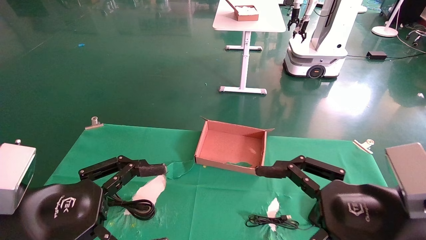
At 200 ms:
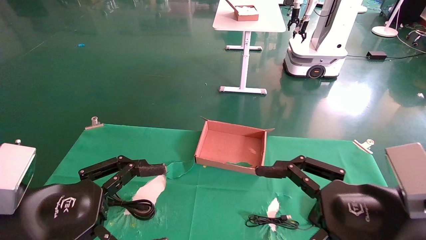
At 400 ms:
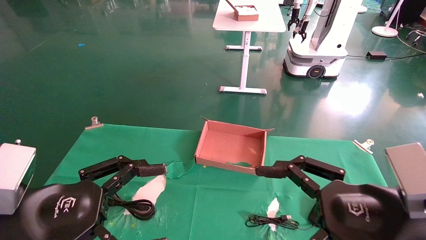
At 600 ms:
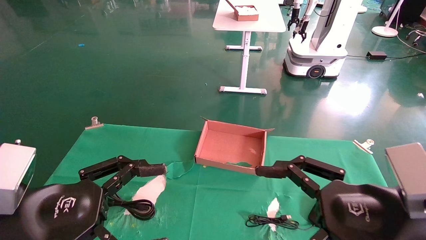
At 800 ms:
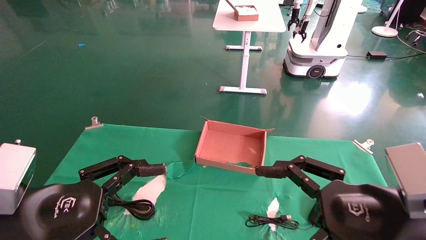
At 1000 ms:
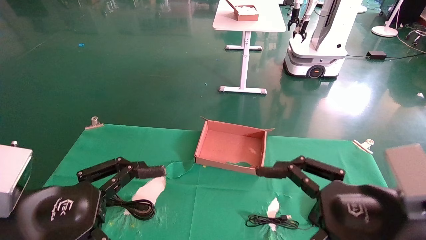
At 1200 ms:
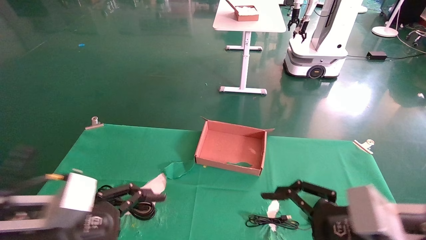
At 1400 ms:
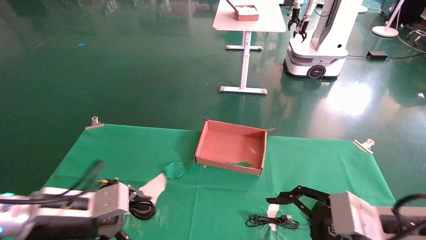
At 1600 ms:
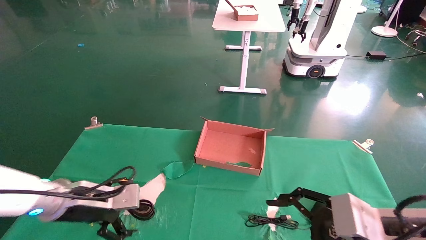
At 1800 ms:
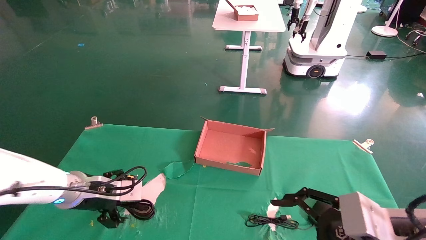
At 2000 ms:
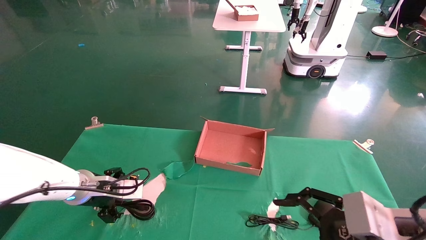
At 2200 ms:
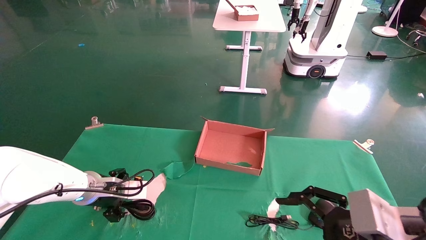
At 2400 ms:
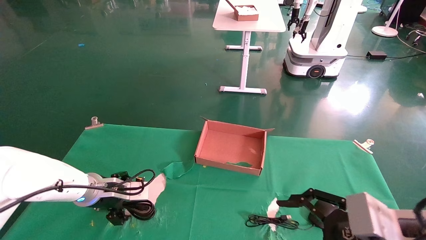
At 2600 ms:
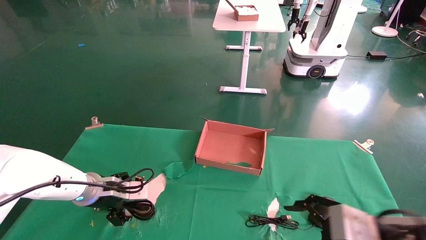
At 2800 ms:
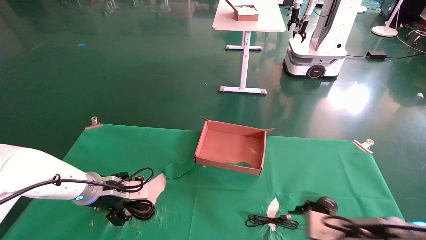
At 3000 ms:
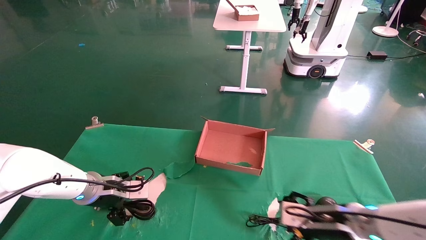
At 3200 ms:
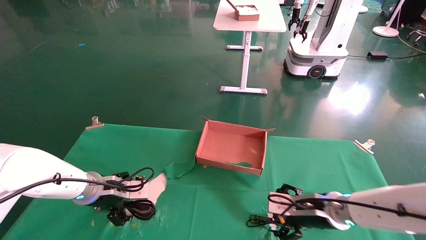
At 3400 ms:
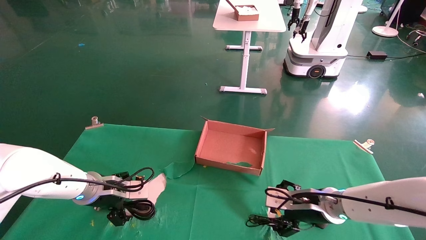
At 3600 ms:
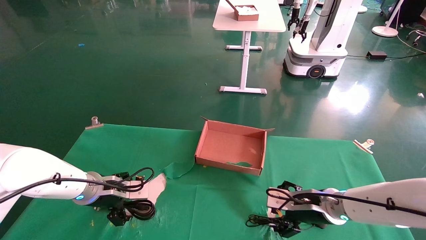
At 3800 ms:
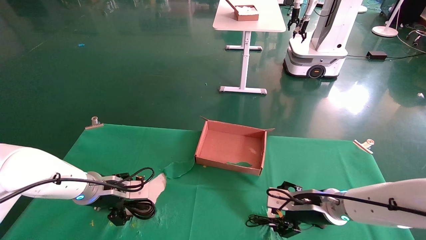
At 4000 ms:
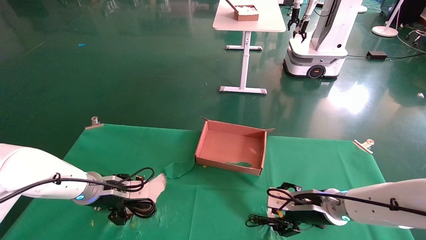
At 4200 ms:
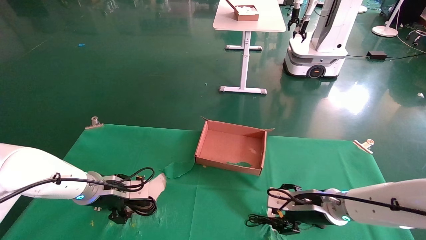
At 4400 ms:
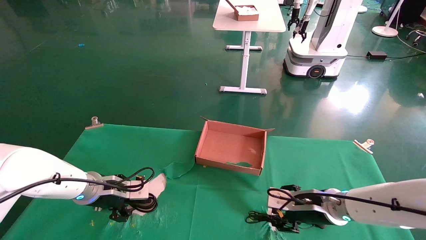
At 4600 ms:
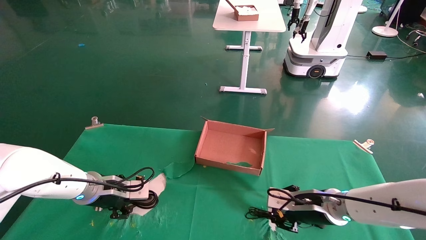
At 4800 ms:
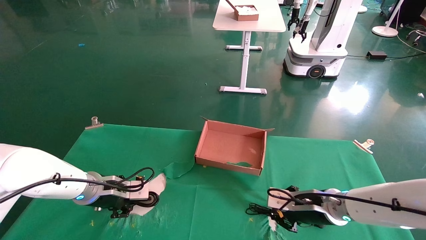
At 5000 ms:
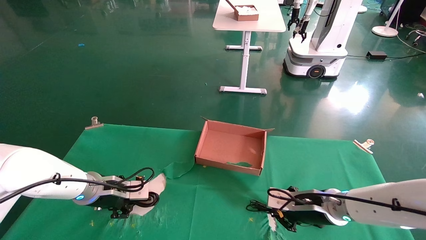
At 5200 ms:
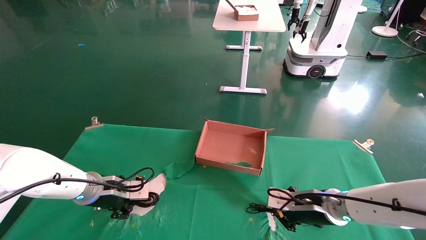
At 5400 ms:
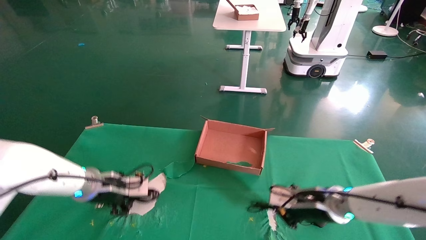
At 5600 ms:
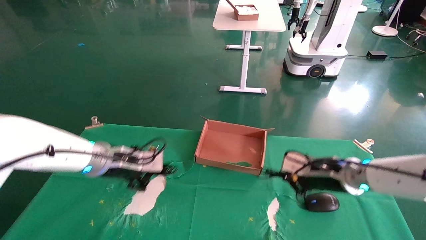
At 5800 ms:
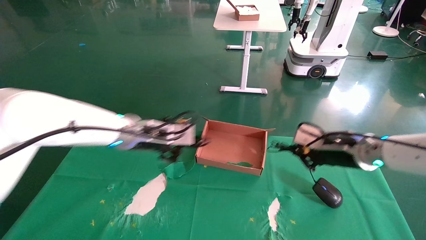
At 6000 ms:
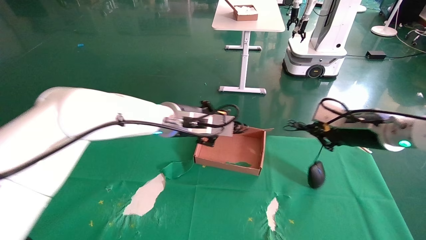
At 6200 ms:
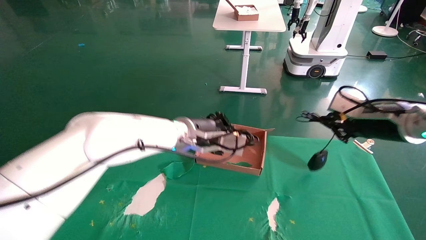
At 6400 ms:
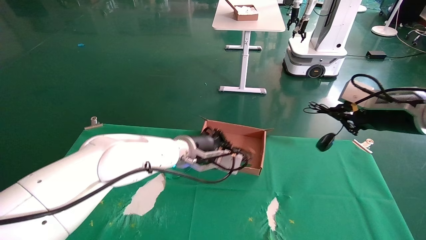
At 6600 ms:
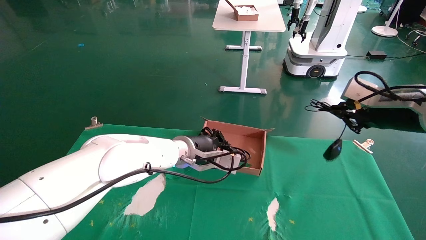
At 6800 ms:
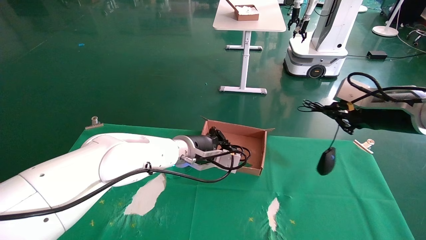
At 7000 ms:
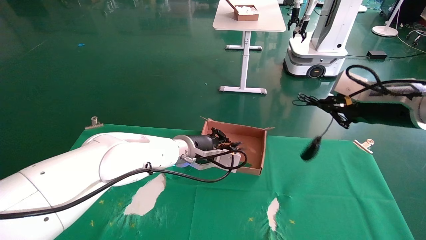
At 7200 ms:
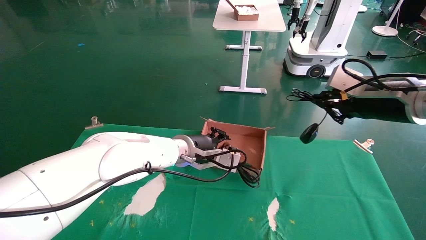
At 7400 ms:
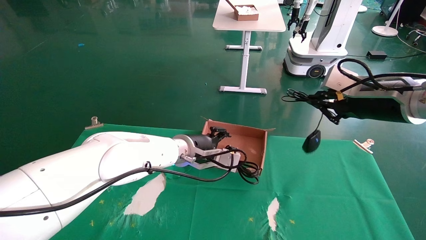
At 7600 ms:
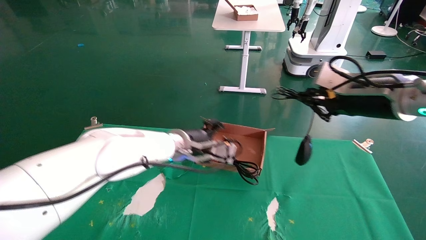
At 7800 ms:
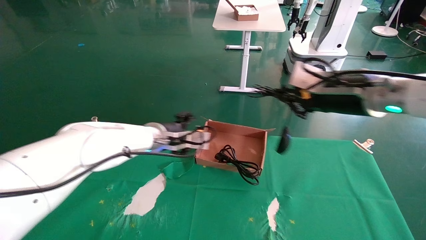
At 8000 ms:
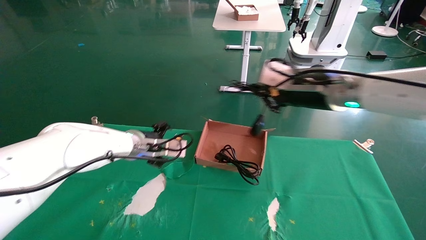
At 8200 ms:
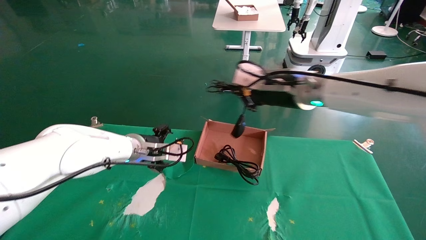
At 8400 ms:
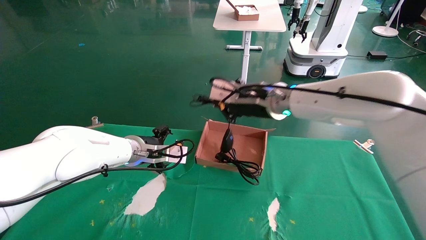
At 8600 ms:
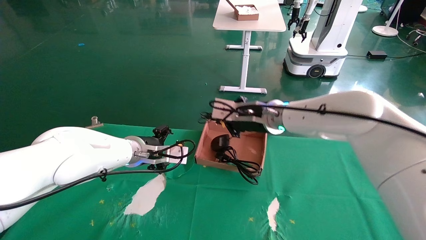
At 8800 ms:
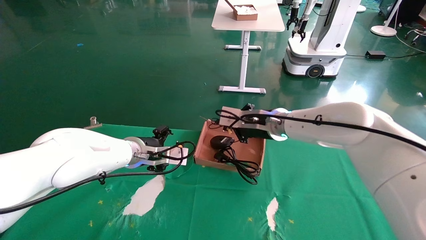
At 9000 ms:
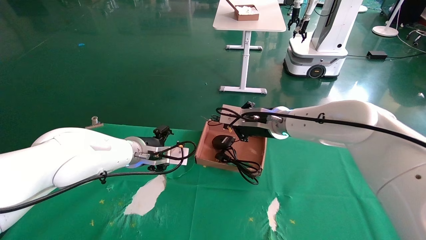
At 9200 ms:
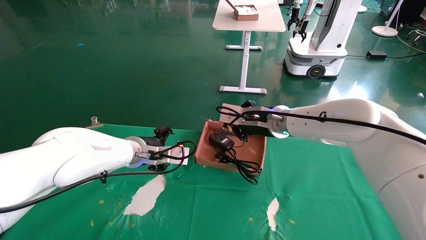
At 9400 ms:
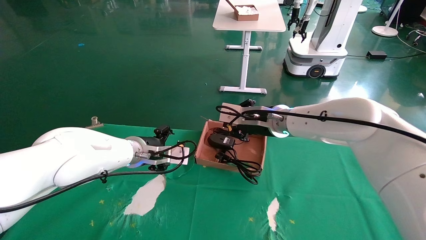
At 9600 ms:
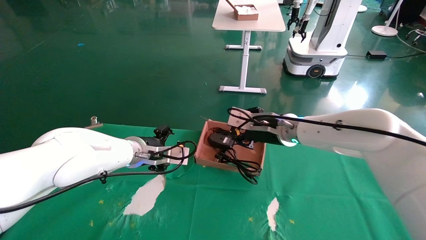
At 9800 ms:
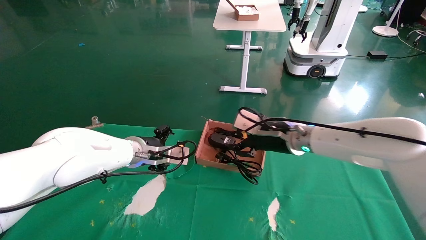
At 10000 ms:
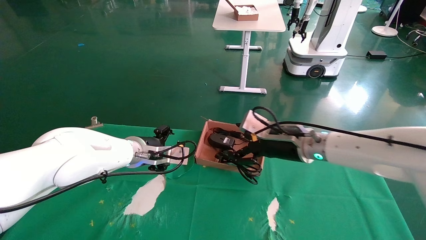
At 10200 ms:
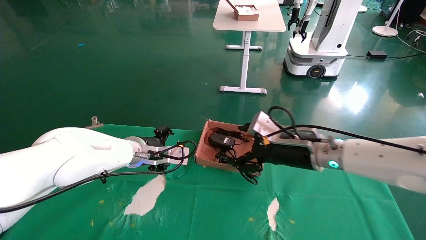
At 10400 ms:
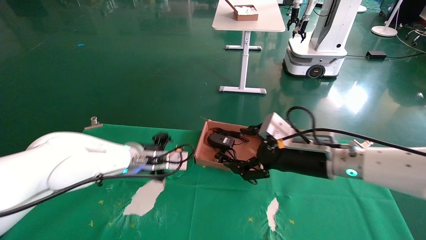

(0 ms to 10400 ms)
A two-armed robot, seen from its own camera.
Step, 1000 ms - 6000 ms: Grab and lift both the mouse and power cord from the accessory packaging area at the same time.
Step, 6200 ms - 10400 ms: Place the mouse and power cord into the box.
0 ms - 1400 ms: The left gripper is displaced forward and downward by approximately 15 cm. The right gripper changes place by about 5 cm.
1400 ms - 3000 ms: The left gripper shifts approximately 15 cm forward. Meanwhile the right gripper travels forward and downward by some 15 cm.
3000 ms - 4400 ms: The left gripper closes its fingers; the right gripper ends up some 5 cm from where it was.
4400 ms - 6000 ms: The left gripper is displaced to the right and upward by some 20 cm, and closes its fingers. Meanwhile the right gripper travels upward and to the right by some 20 cm, and closes.
6000 ms - 7400 ms: The right gripper shifts about 5 cm upward. Meanwhile the left gripper moves roughly 5 cm, and opens up.
7400 ms - 9000 ms: The right gripper goes approximately 20 cm to the left and forward; the left gripper shifts roughly 10 cm to the left, and opens its fingers.
9000 ms - 10400 ms: The right gripper is displaced backward and to the right by about 15 cm, and opens.

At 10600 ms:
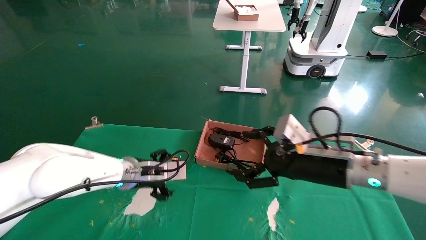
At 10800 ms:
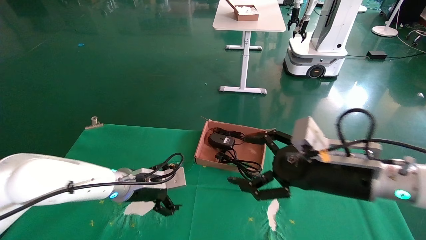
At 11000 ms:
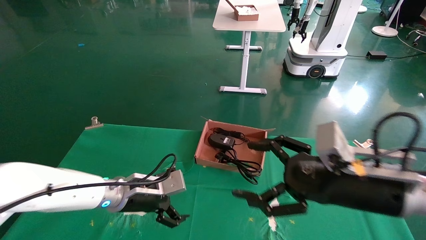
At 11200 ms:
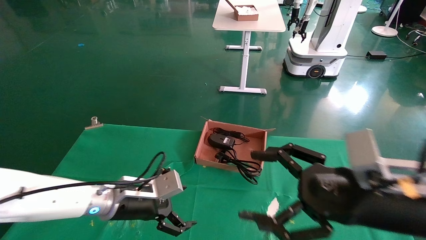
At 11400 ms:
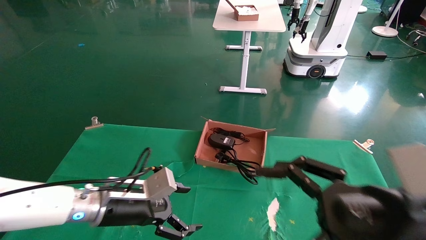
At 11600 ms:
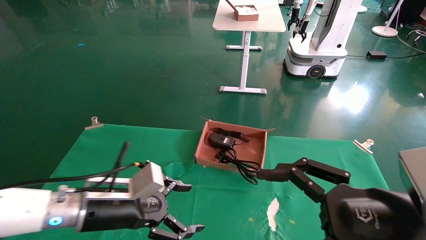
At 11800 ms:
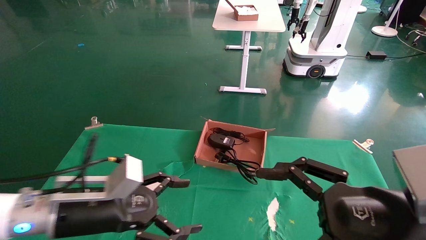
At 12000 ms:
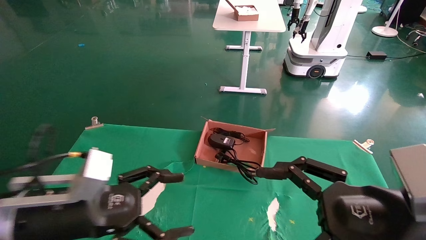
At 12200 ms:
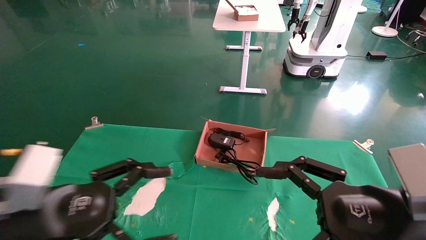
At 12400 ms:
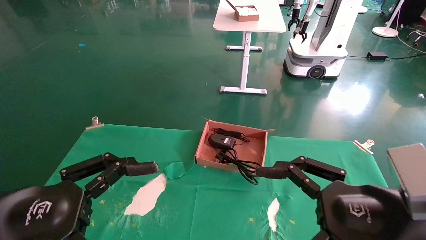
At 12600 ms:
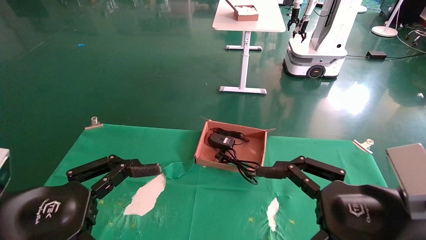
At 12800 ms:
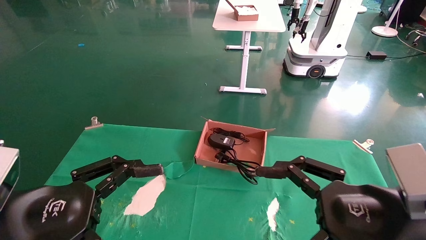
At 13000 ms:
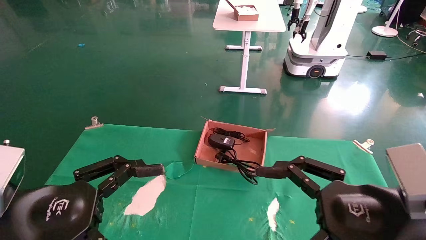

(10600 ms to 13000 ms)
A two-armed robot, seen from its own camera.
10600 ms - 11800 ms: Both grippers move backward, some 15 cm.
11800 ms - 13000 ms: The left gripper is displaced backward by some 10 cm.

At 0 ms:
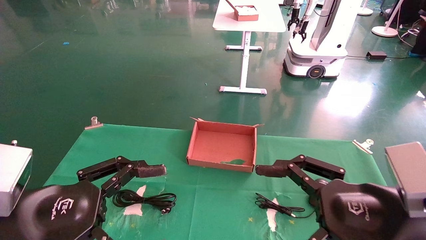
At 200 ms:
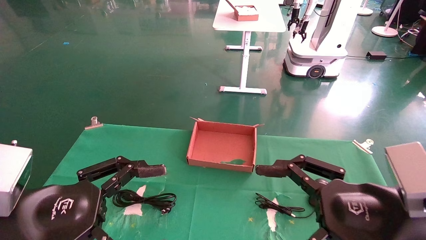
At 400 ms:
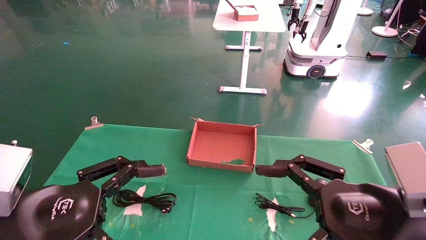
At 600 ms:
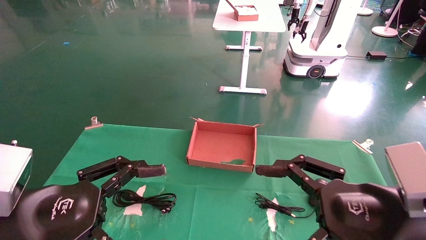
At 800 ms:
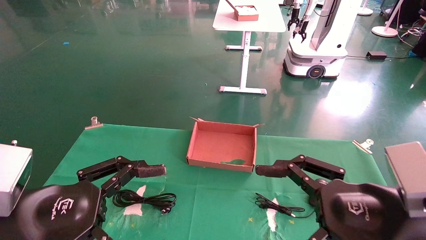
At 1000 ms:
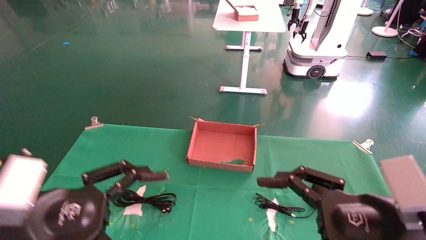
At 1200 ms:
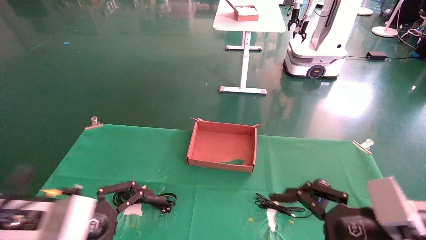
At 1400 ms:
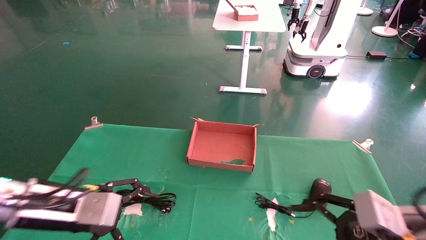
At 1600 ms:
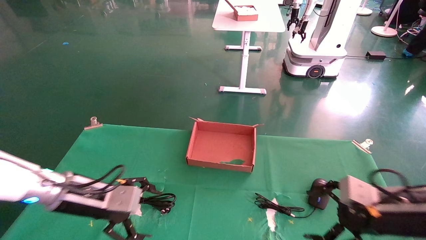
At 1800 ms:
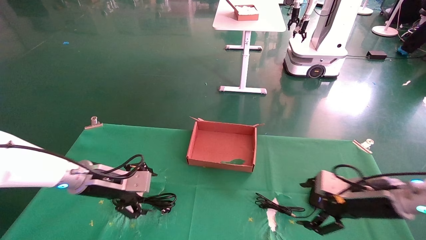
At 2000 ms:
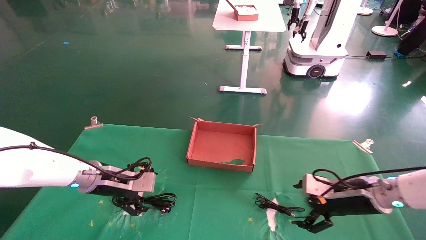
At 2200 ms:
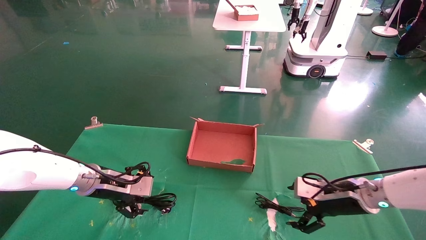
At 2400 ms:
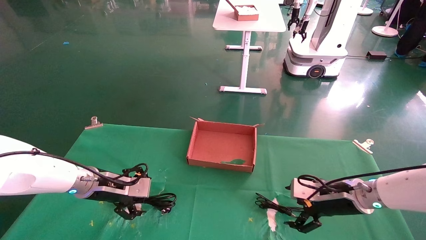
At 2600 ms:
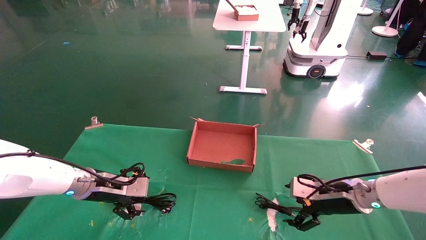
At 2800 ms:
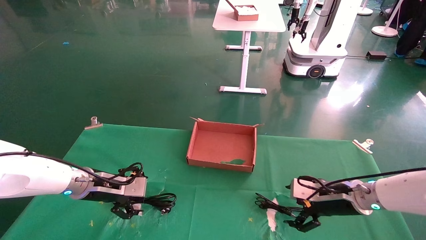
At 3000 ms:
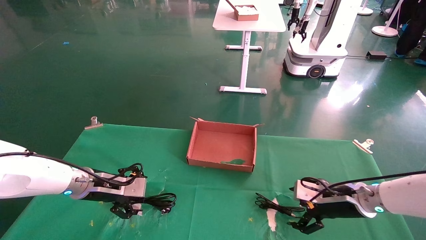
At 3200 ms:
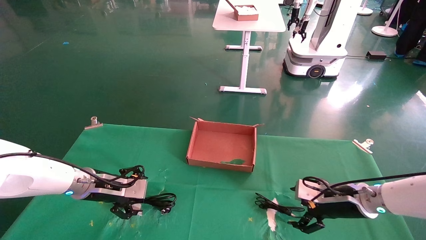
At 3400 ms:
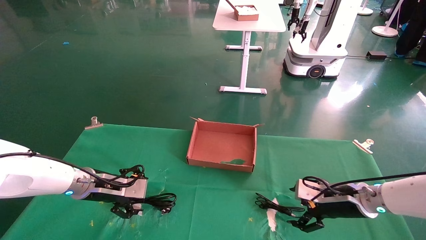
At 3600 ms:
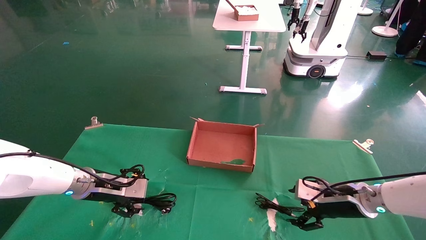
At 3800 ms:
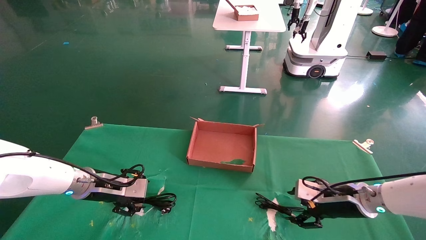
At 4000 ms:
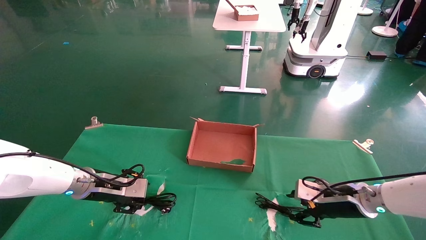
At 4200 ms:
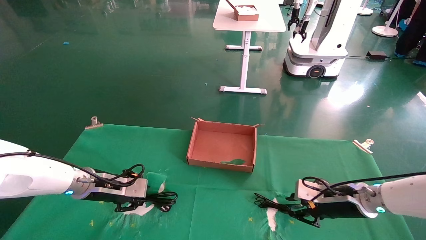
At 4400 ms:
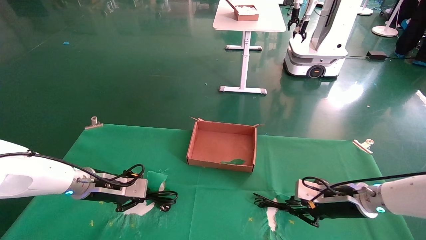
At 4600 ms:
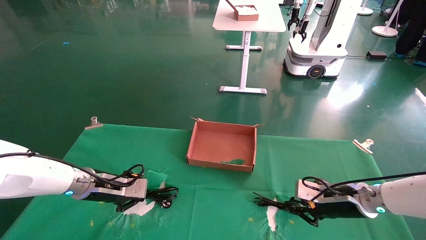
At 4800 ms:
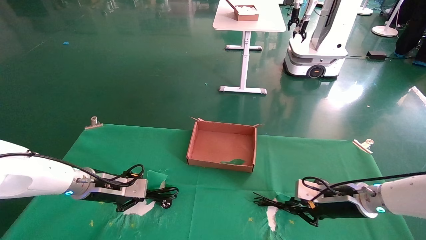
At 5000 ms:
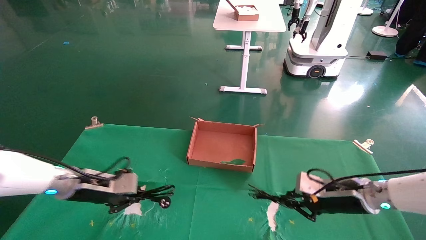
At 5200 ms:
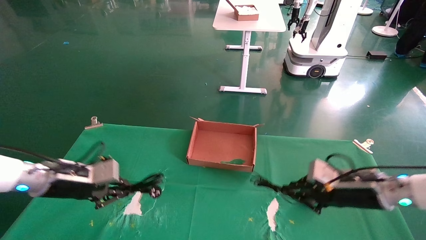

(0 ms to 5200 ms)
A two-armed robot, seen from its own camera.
Step, 1200 ms - 4600 ms: Grab and lift both the mouse and power cord from the accessory packaging area at the same time.
0 ms - 1800 ms: The left gripper moves forward, some 20 cm. Meanwhile the right gripper travels forward, downward and to the right by about 20 cm.
1800 ms - 3400 ms: The right gripper travels forward by roughly 5 cm; the left gripper moves roughly 5 cm.
3400 ms - 5200 ms: The right gripper travels upward by about 5 cm, and closes up. The left gripper changes place by approximately 10 cm, and closes.
